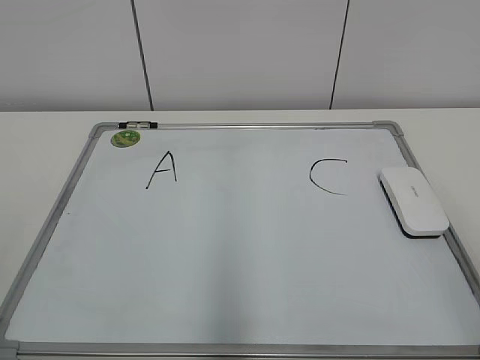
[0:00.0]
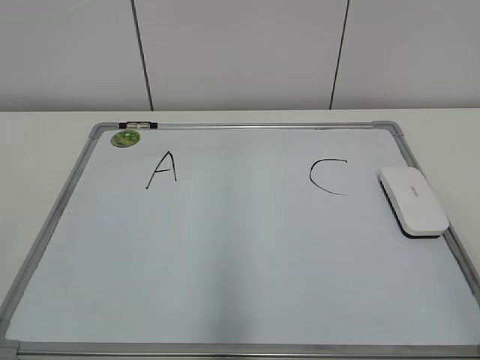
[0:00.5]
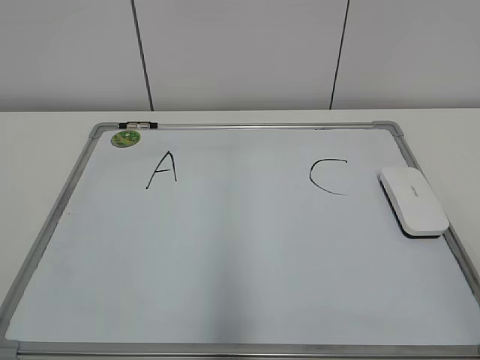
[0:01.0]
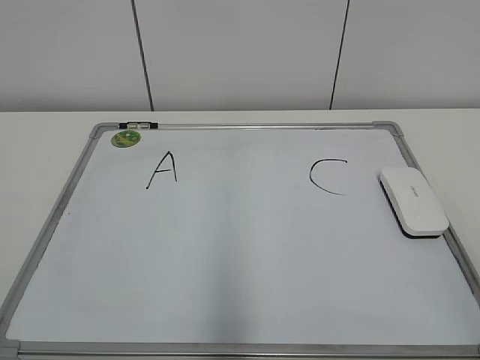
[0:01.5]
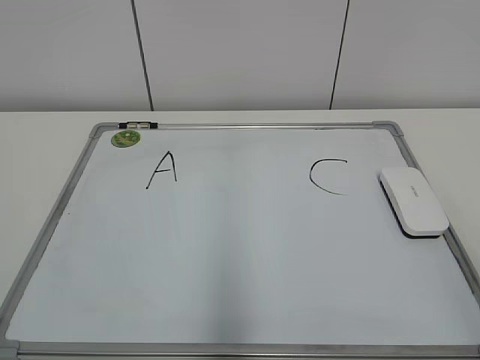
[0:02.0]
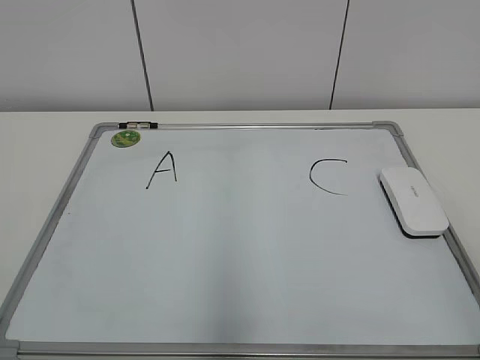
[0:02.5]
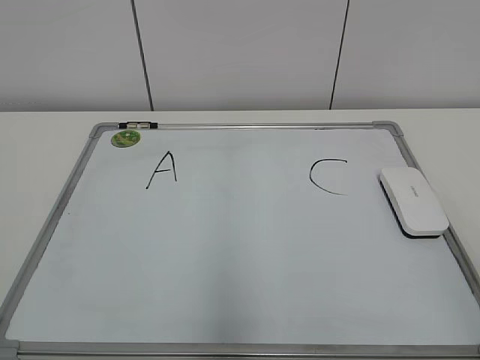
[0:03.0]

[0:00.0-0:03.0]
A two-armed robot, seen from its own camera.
Task of the whole recording: pick up the eraser on the blackboard and erase the letter "B".
0:01.5 to 0:03.0: The two grippers keep their place.

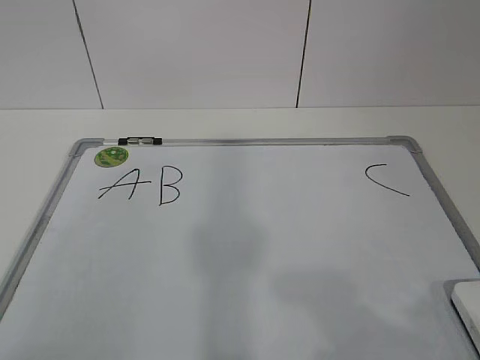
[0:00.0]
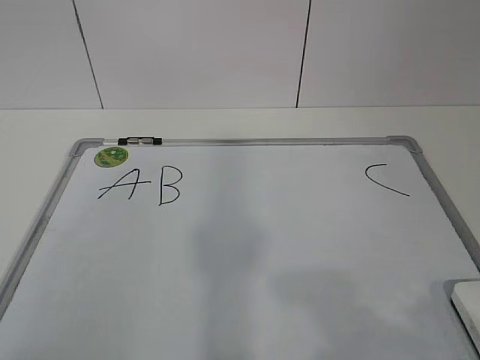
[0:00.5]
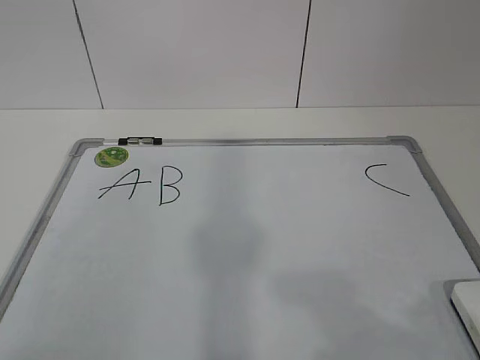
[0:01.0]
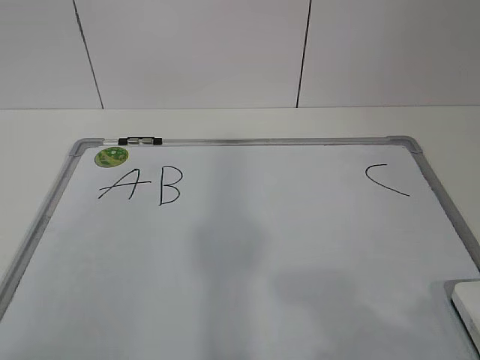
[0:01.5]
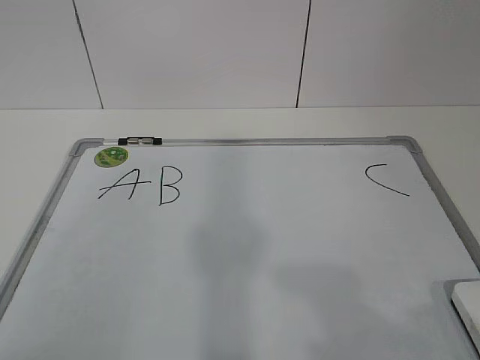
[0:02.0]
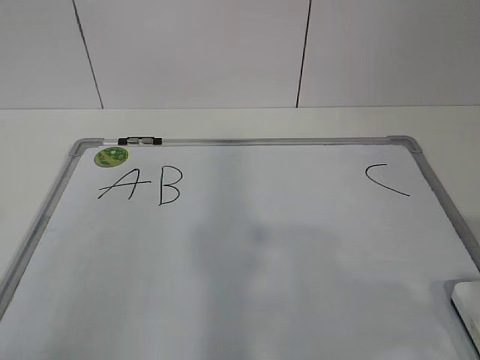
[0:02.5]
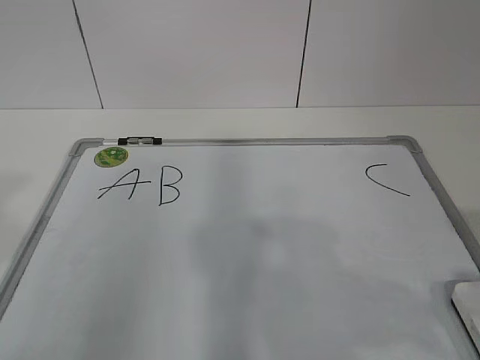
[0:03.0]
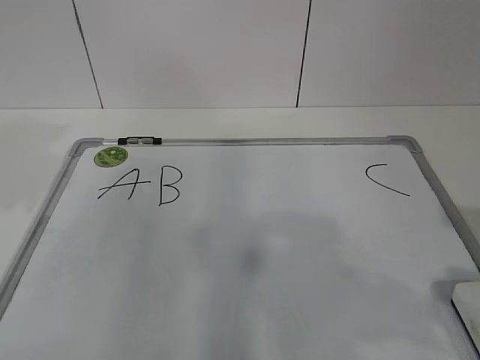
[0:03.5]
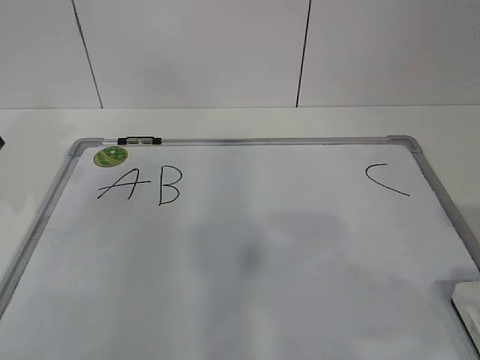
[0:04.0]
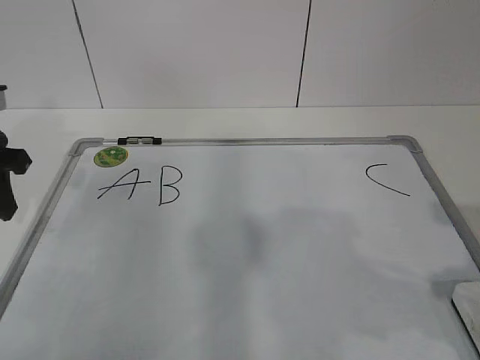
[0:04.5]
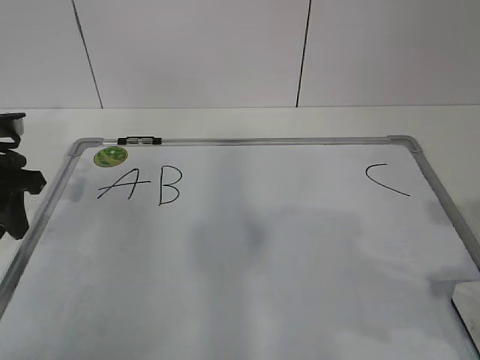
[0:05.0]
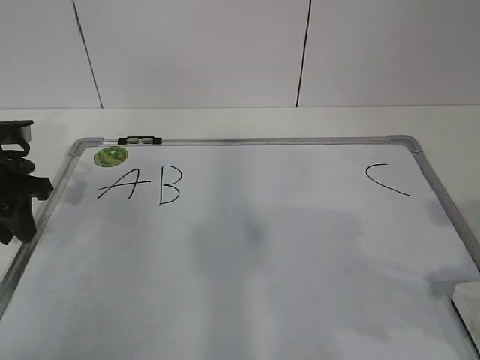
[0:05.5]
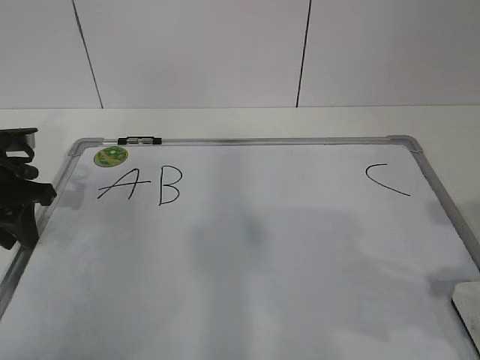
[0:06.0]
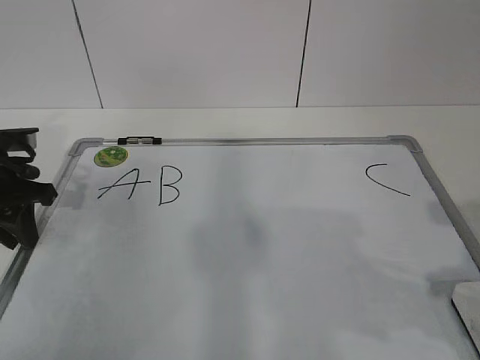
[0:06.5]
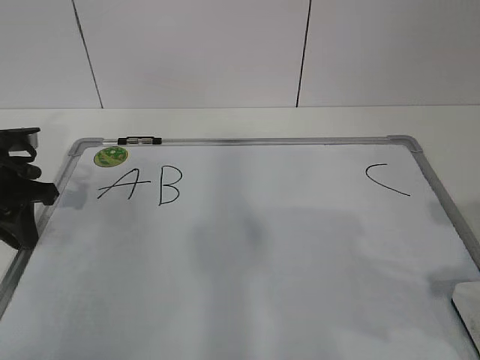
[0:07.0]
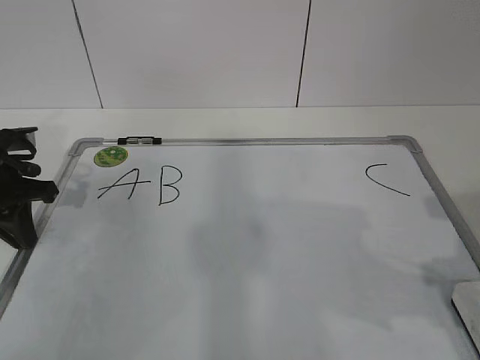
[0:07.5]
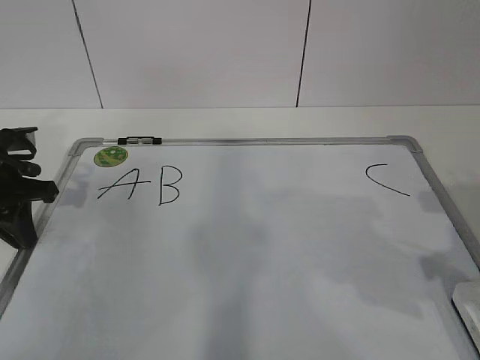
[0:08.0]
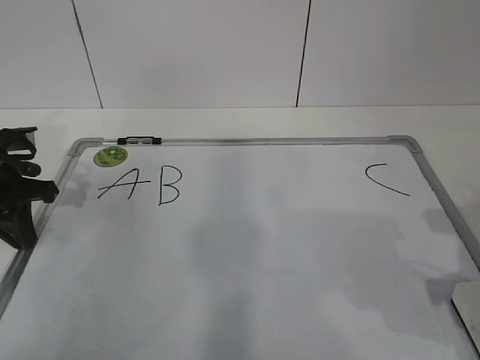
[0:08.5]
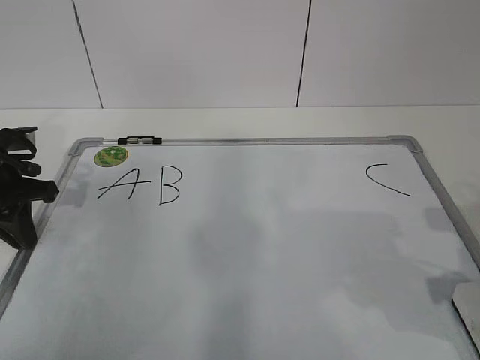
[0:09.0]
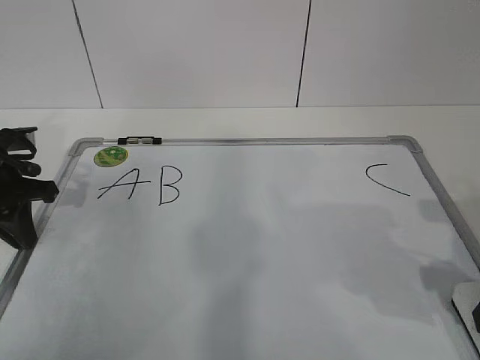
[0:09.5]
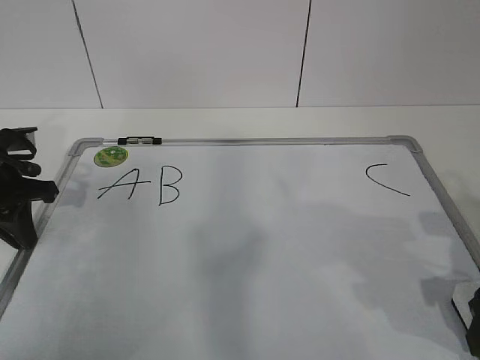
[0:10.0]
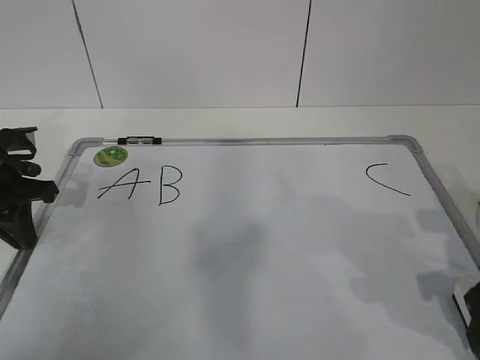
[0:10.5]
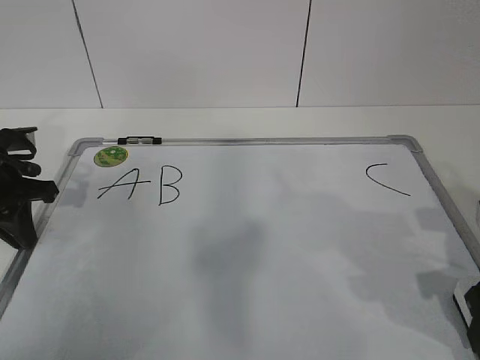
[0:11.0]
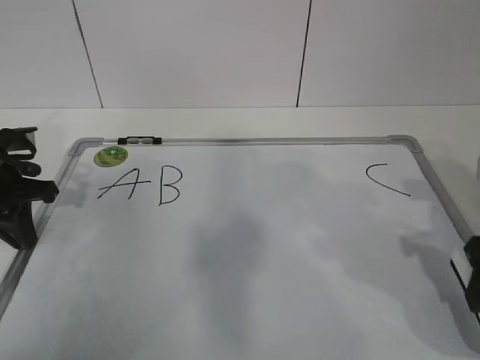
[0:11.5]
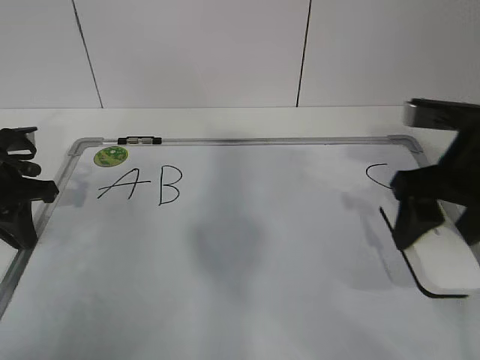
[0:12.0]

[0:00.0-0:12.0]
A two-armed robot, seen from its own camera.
Task of the whole recording: pick up the eraser on the blackboard and erase the letter "B".
Step, 0:00.0 to 0:06.0: Hold the drawing board steady with your left hand.
0:04.0 to 0:06.0: The left gripper heads downward, covering approximately 10 cm.
0:06.0 to 0:08.0: The left gripper closes its fingers.
0:08.0 to 0:10.0: The right gripper shifts some 5 cm downward, and opens.
0:10.0 to 0:12.0: The right gripper heads forward and upward, covering roughly 10 cm, and closes its fingers.

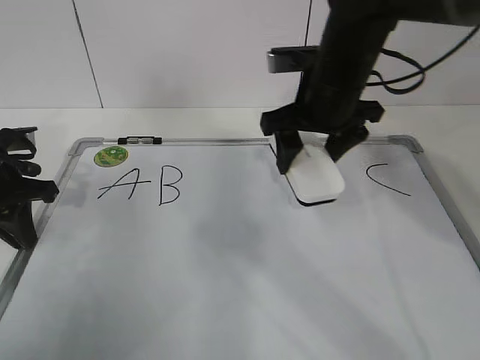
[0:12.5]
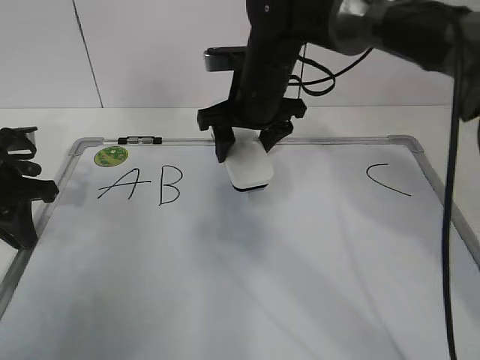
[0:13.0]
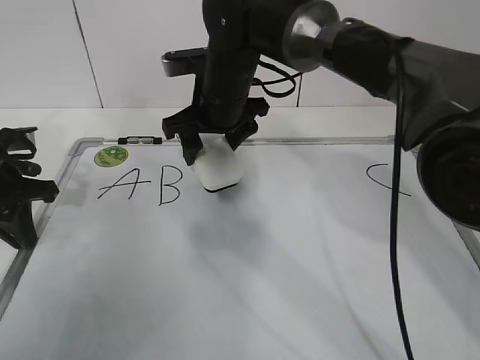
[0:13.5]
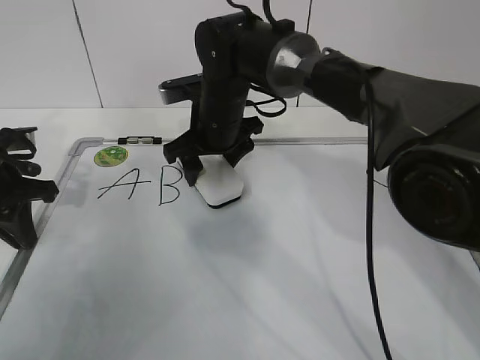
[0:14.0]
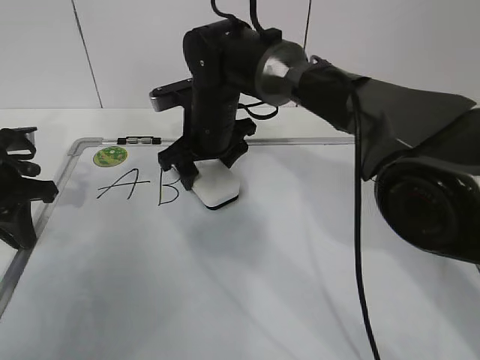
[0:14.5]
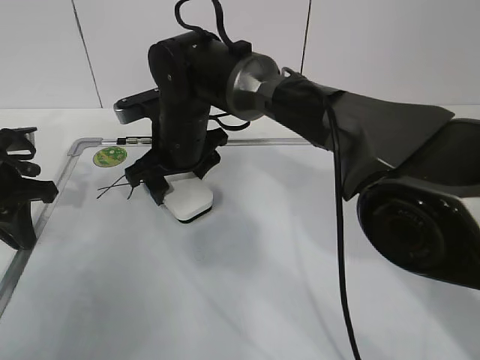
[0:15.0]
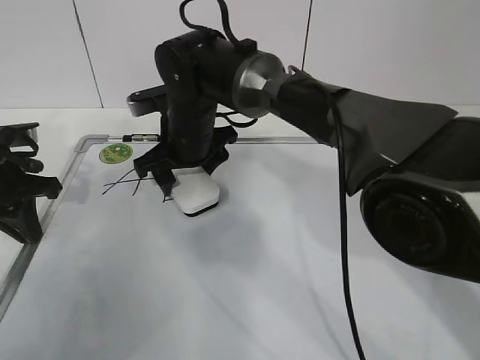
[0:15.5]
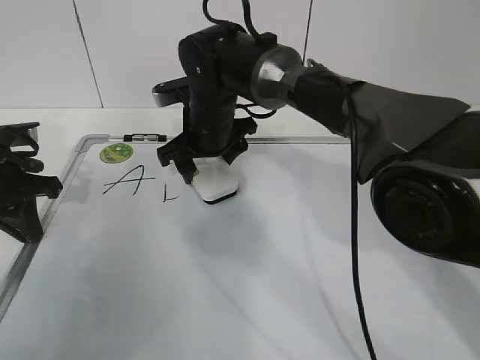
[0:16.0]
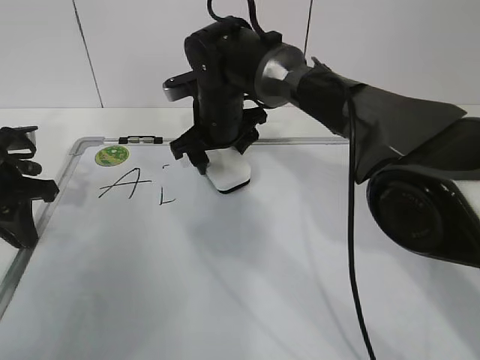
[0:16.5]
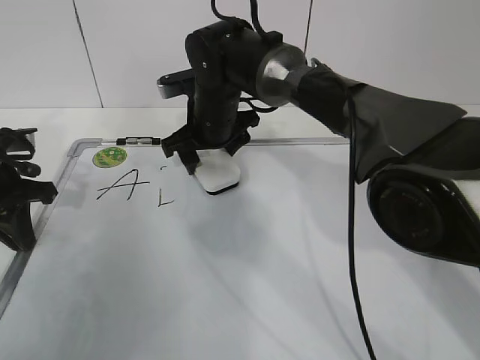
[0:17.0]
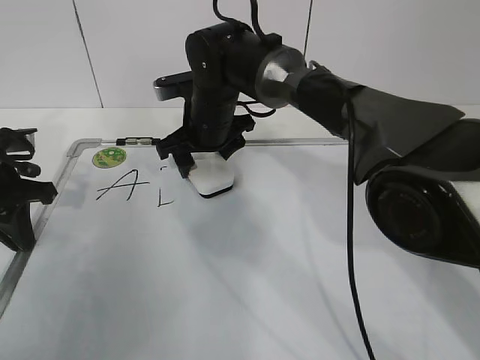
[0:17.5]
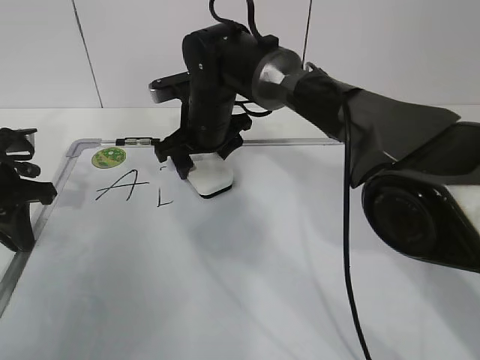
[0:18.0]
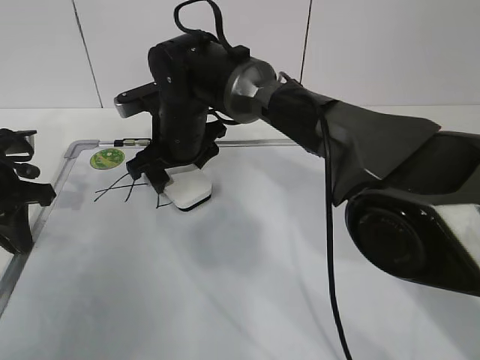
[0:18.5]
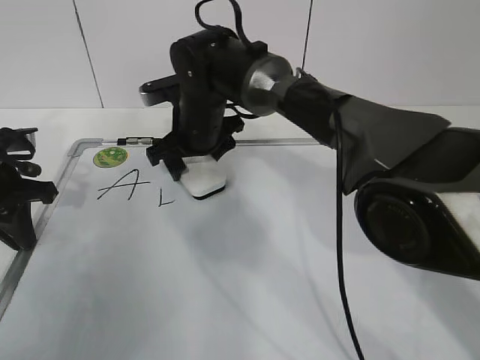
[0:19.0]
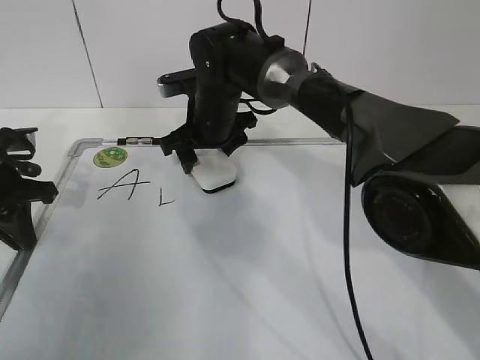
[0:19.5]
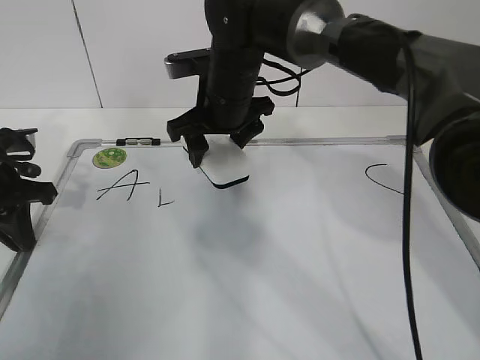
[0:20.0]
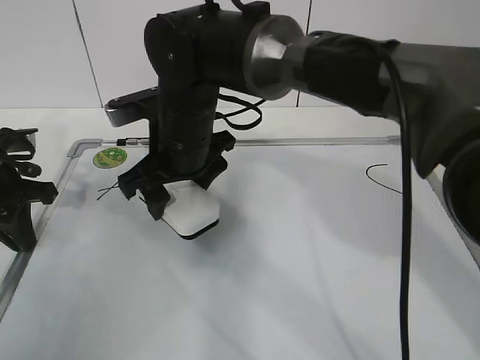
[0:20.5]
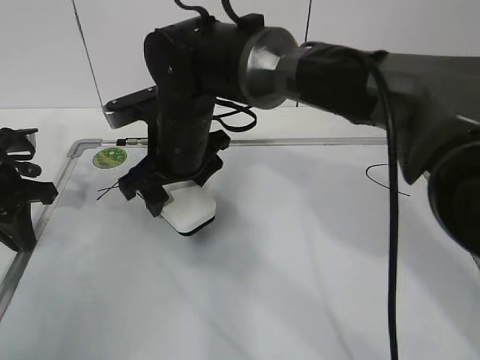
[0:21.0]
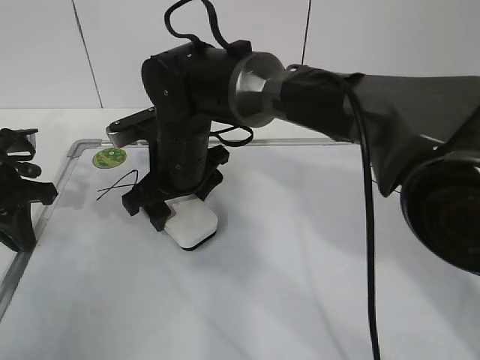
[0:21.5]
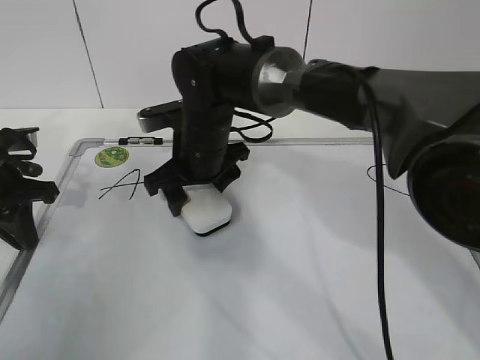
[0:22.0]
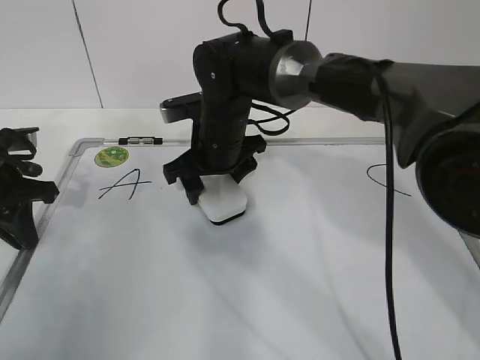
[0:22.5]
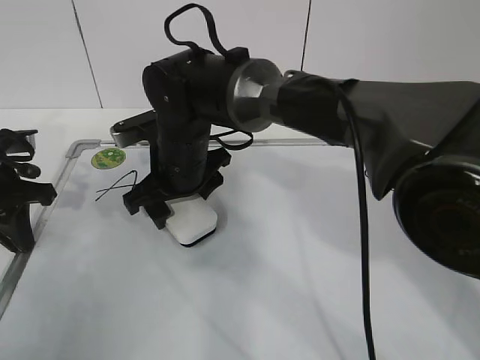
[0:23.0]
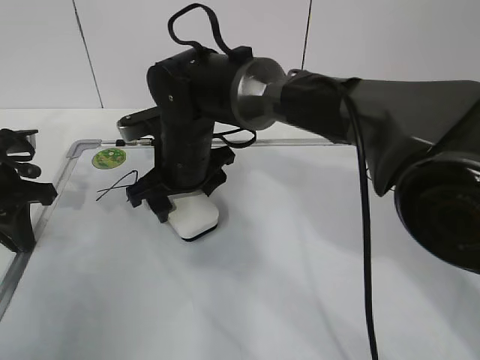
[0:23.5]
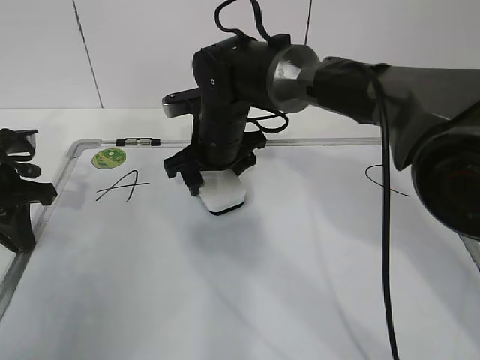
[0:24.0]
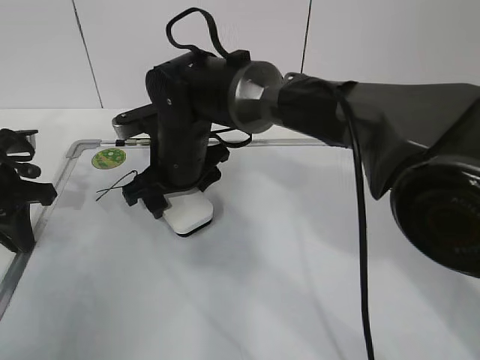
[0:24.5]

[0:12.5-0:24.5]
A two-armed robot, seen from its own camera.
Task of the whole recording: pick up the eraser on the blackboard and erase the letter "B".
Step, 0:12.5 to 0:22.5: Erase the letter B with your right hand.
0:12.5 to 0:14.5: The right gripper shifts some 15 cm to the left and downward.
0:14.5 to 0:16.5: There are only small adjustments of the grippers.
0:16.5 to 0:18.5: The right gripper shifts by roughly 5 cm.
0:18.5 to 0:20.5: The right gripper shifts roughly 5 cm backward.
0:20.5 to 0:22.5: The right gripper changes place by about 10 cm.
0:22.5 to 0:24.5: The right gripper swings left and right, some 5 cm each way, with 2 reversals.
